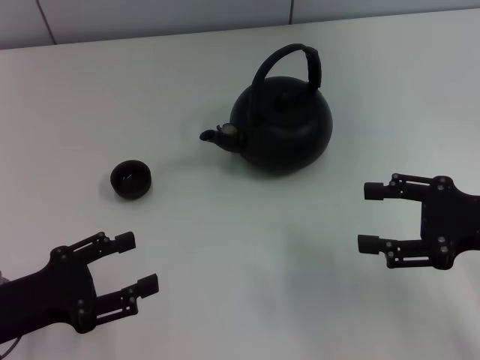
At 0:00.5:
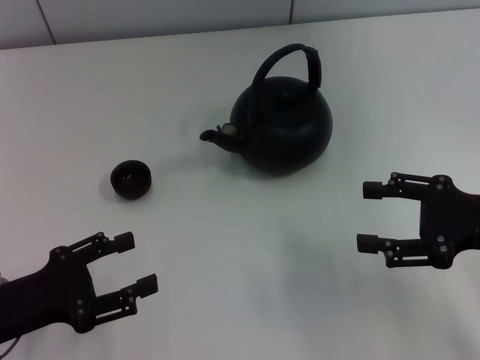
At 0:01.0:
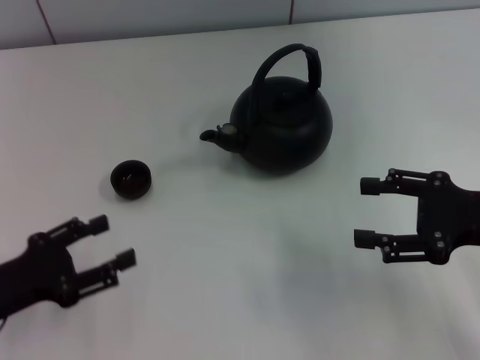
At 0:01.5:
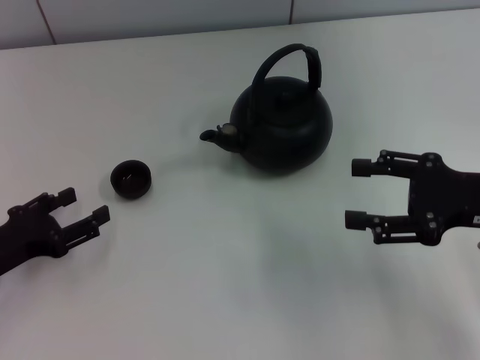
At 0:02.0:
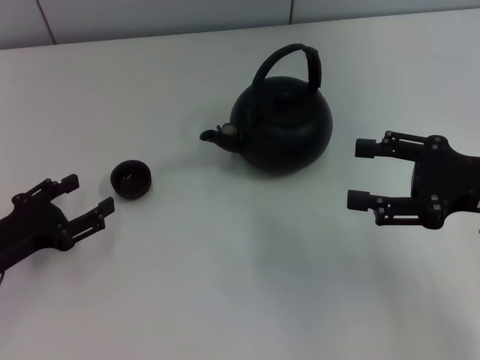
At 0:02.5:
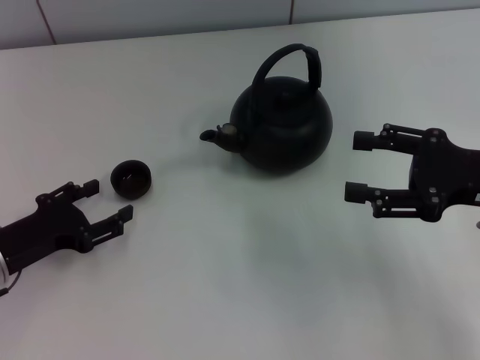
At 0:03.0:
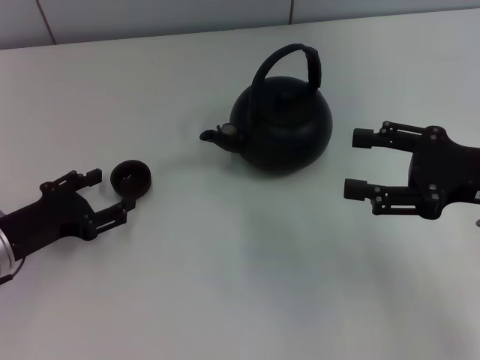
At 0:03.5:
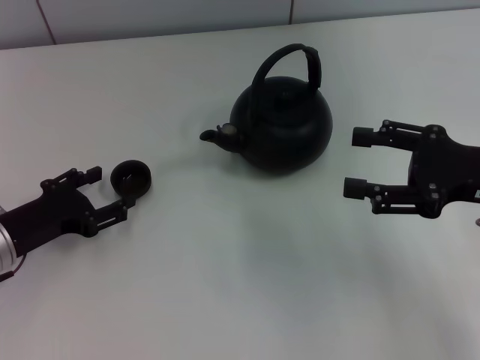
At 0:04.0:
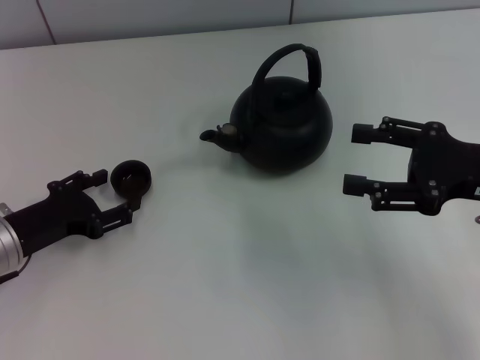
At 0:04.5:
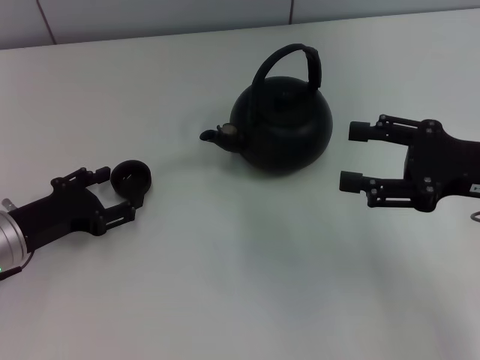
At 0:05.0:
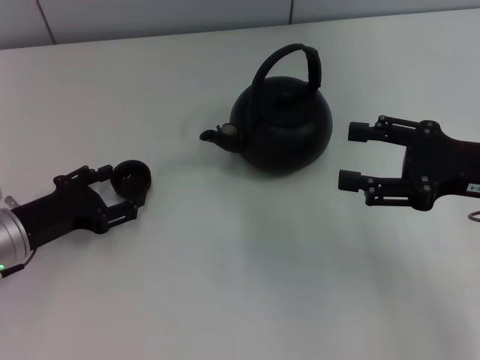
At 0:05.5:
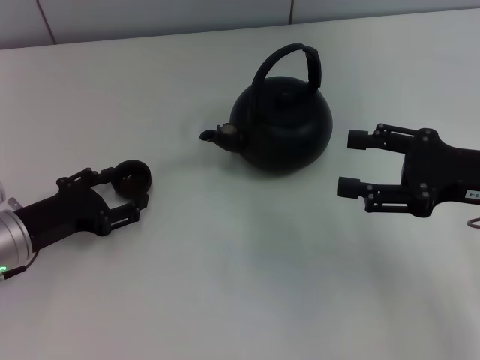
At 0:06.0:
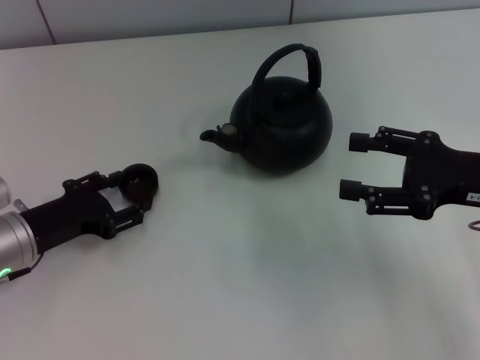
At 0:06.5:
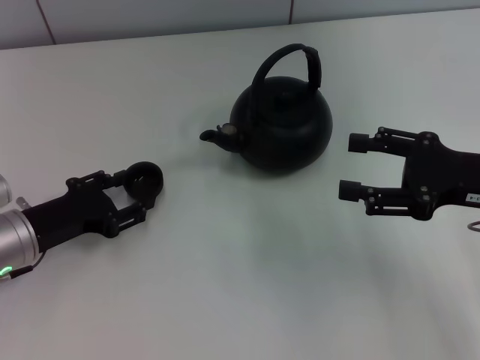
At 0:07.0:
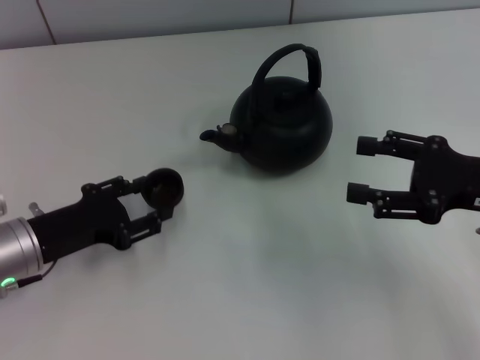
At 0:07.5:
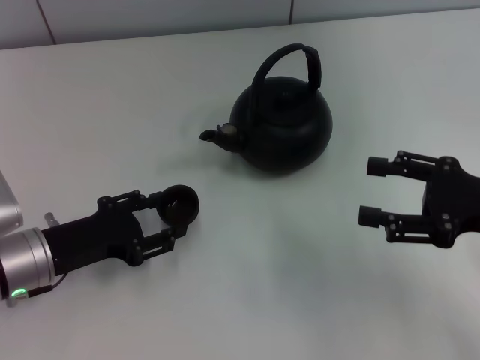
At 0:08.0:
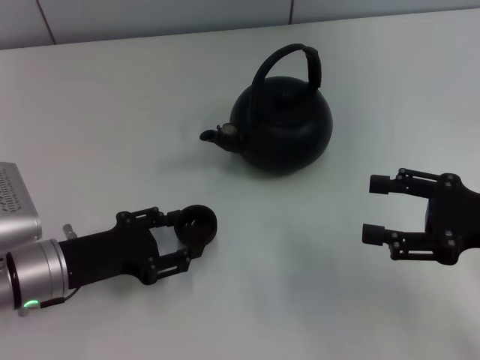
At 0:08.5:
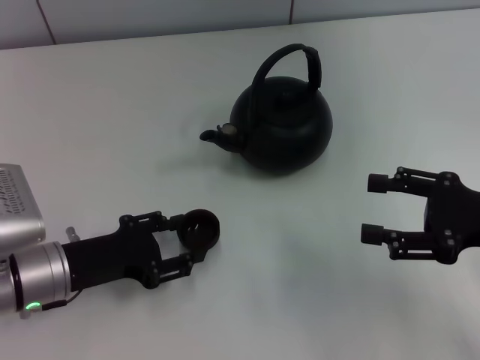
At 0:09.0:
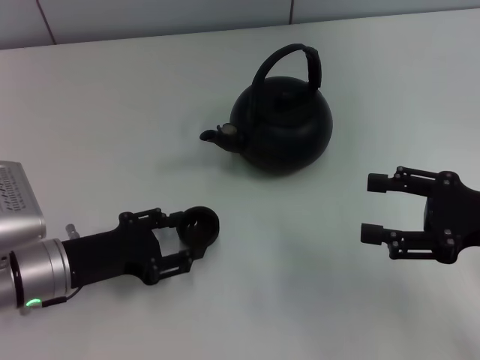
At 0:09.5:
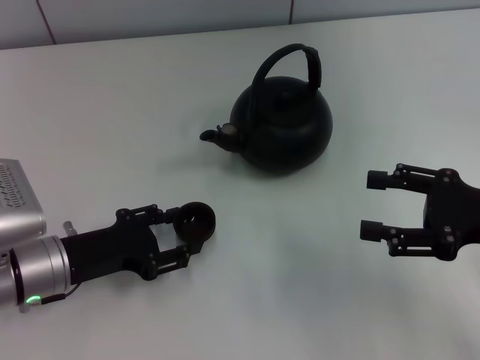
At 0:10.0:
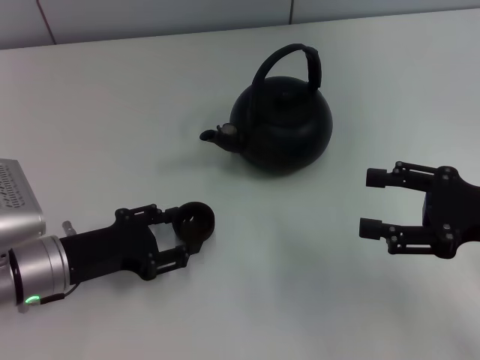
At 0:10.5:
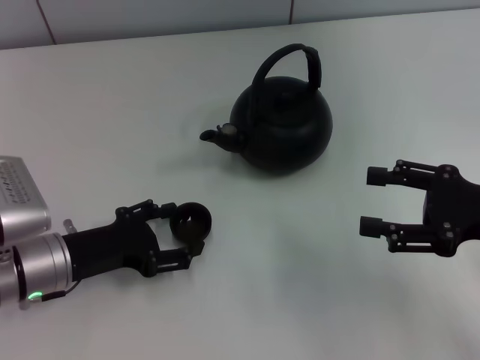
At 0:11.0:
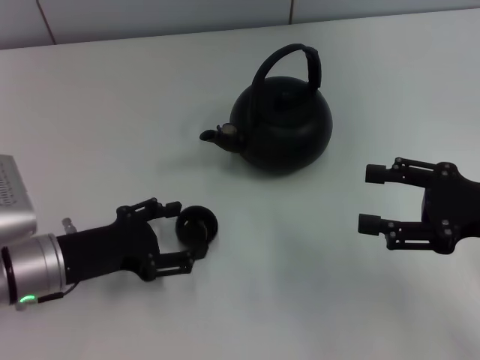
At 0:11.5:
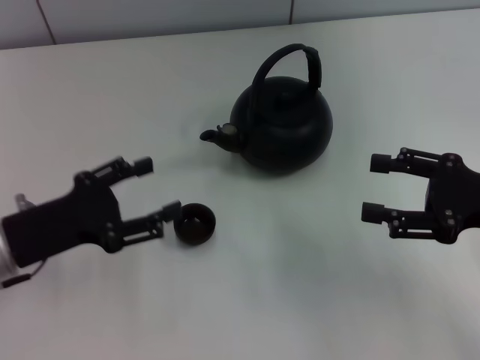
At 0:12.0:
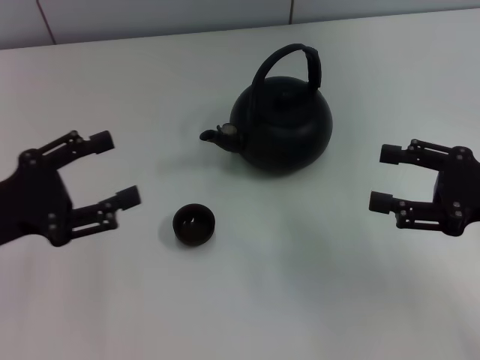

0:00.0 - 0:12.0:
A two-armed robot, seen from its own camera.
Task of the whole recording: Grasp the handle of the teapot with one hand and pour tea into the teacup.
Step, 0:00.0 - 0:06.5: Pick up the teacup with the left gripper.
Step, 0:07.0 - 0:11.0: Place the teacup in the center of view with the left gripper.
0:00.0 - 0:02.0: The left gripper moves approximately 5 cm.
0:02.0 - 0:04.0: The grippers move only a little.
0:04.0 - 0:06.0: The left gripper closes its fingers.
0:08.0 - 0:10.0: Both grippers stay put.
0:10.0 - 0:12.0: The left gripper shifts some 10 cm upward and to the left, and opens its fingers.

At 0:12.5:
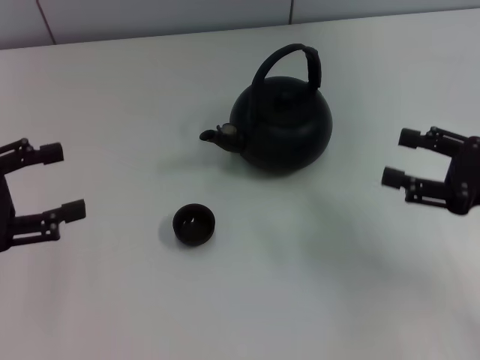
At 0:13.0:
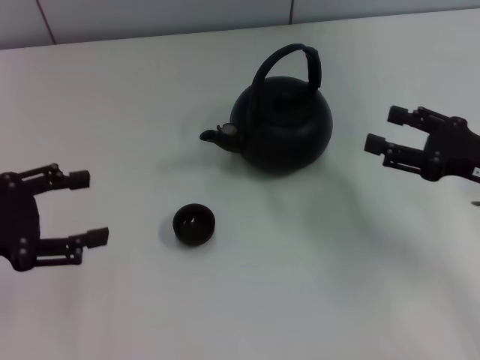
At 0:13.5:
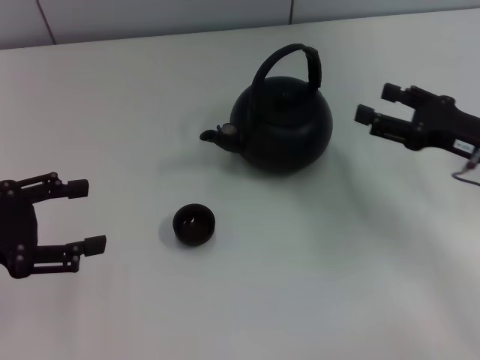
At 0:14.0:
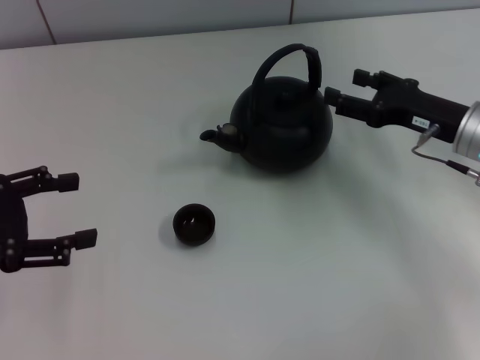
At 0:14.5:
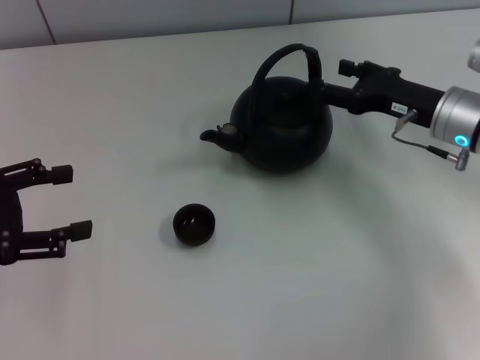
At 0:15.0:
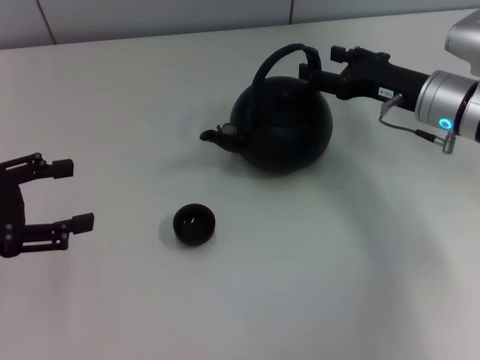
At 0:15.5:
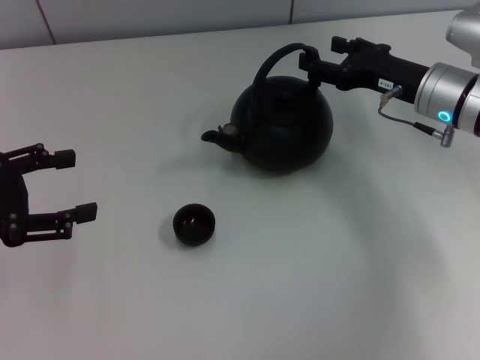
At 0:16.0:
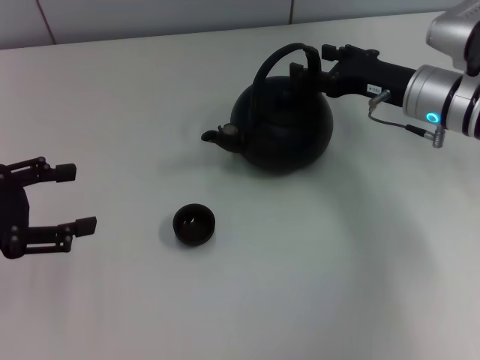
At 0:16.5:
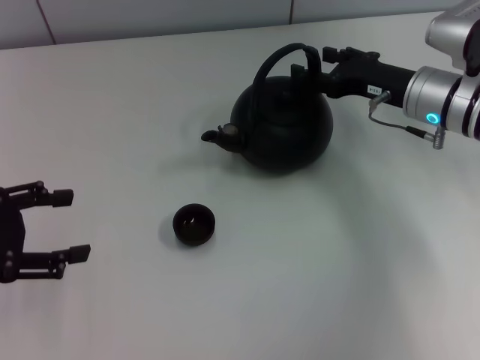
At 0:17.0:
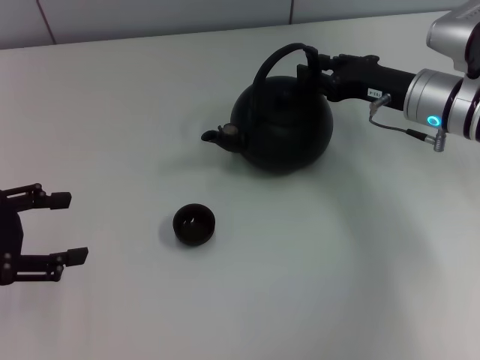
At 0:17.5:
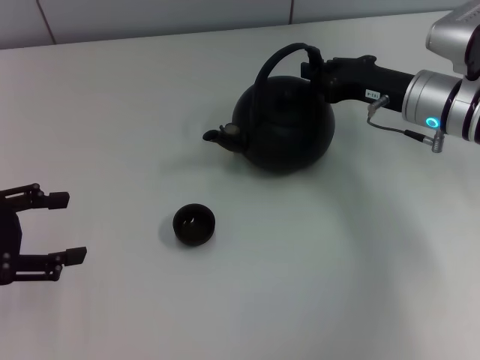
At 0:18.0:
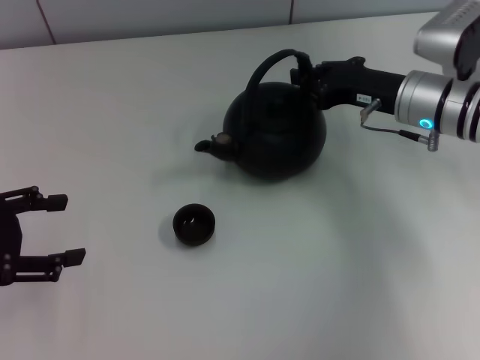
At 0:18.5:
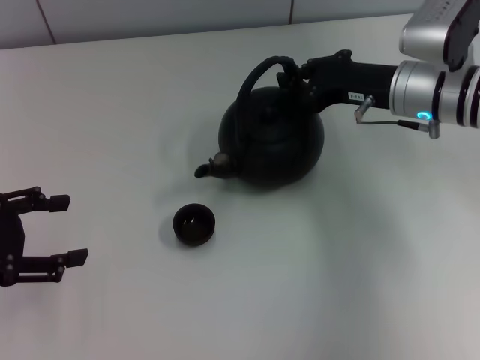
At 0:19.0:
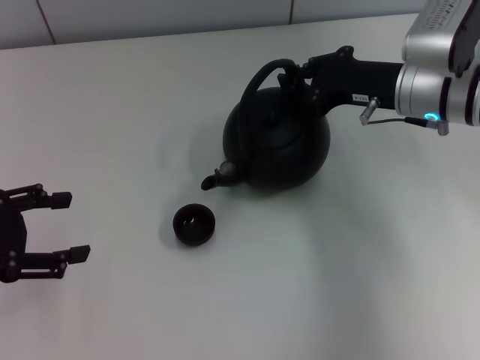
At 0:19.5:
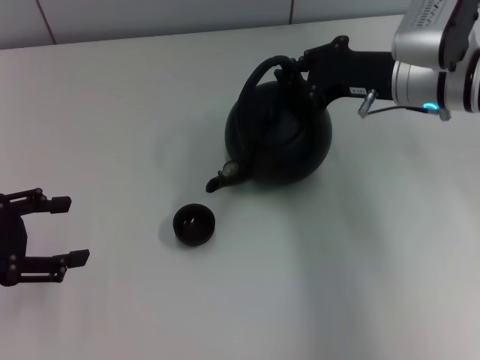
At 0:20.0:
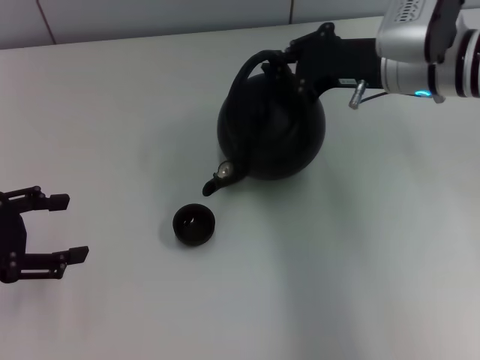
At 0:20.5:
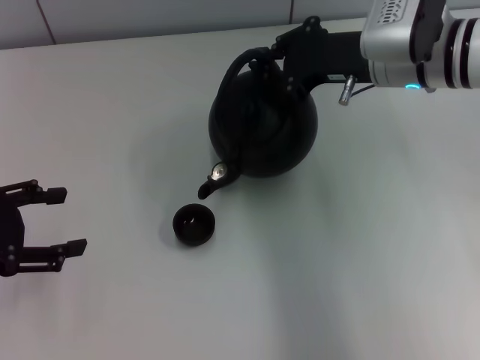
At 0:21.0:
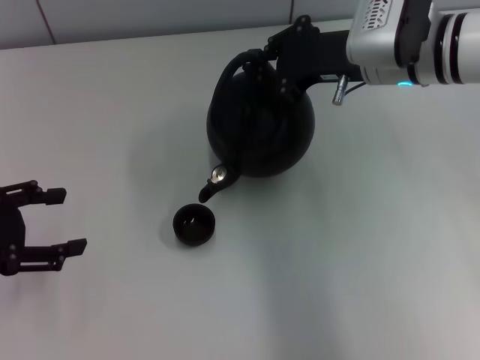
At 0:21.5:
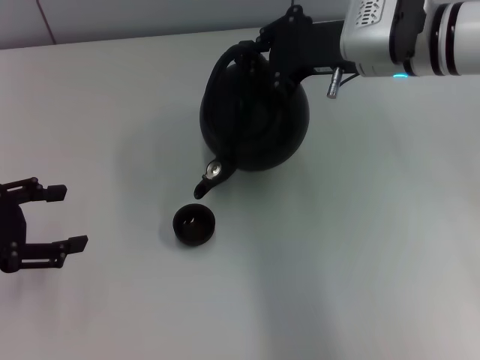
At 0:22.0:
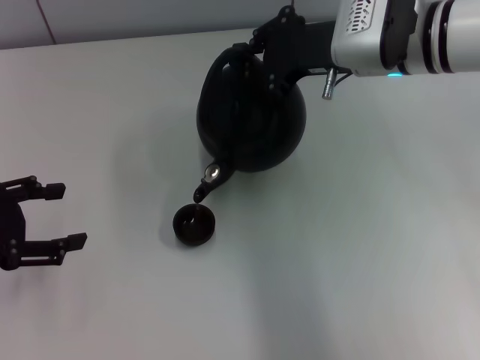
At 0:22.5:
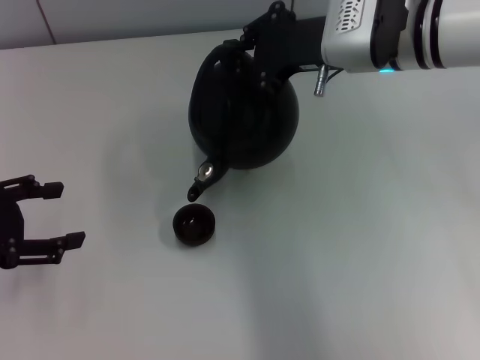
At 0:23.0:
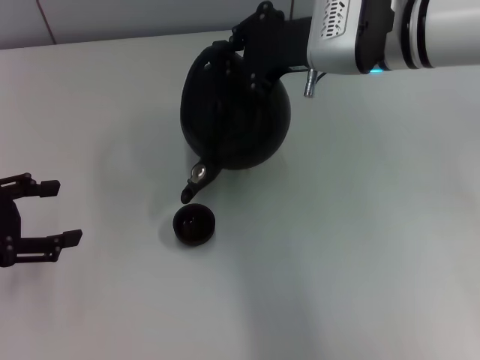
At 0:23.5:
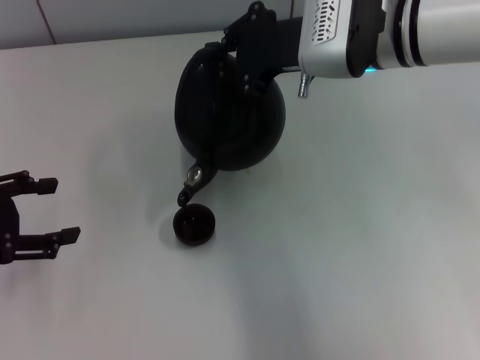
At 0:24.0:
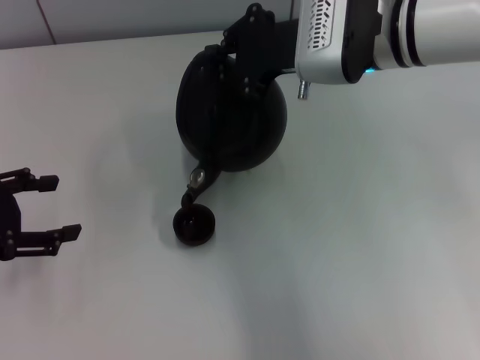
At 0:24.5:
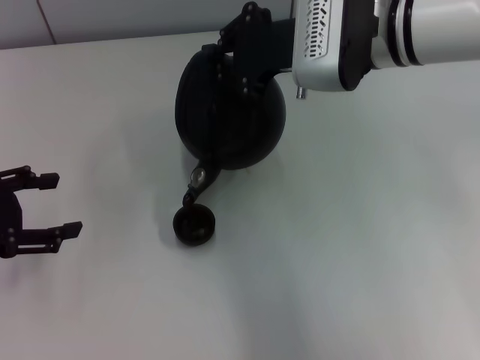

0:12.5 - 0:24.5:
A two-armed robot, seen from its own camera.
Task of the whole recording: Grasp the handle of the teapot with one hand and pour tea into the teacup.
Step, 0:12.5 - 0:20.0: Pick up the teapot with the right gripper.
0:12.5 - 0:14.5: The right gripper shifts about 15 cm forward and to the left.
0:14.5 - 0:16.5: There are only small adjustments of the grippers.
0:16.5 - 0:18.5: The right gripper closes its fingers.
0:18.5 - 0:20.5: The right gripper travels upward by approximately 5 cm.
0:20.5 - 0:22.5: The grippers move only a little.
0:22.5 - 0:24.5: There are only small adjustments of the grippers.

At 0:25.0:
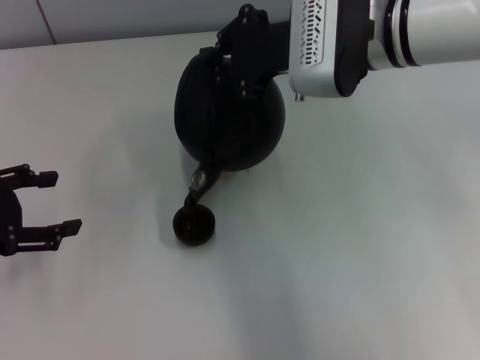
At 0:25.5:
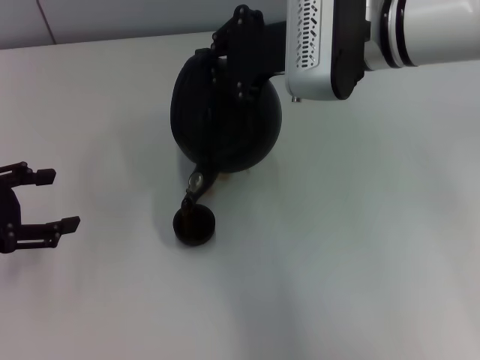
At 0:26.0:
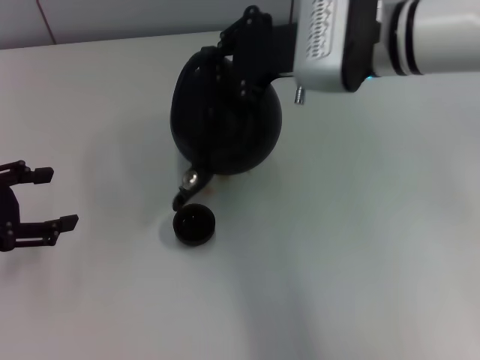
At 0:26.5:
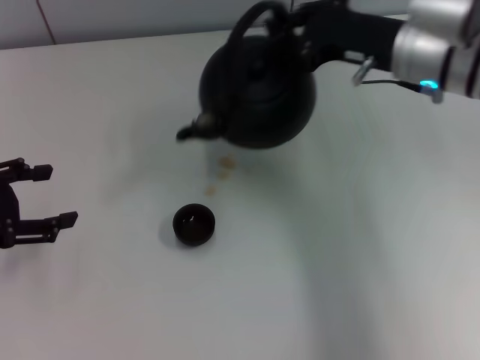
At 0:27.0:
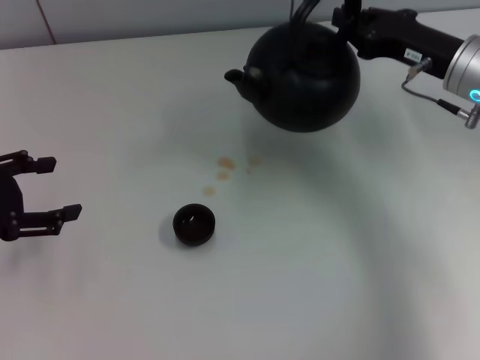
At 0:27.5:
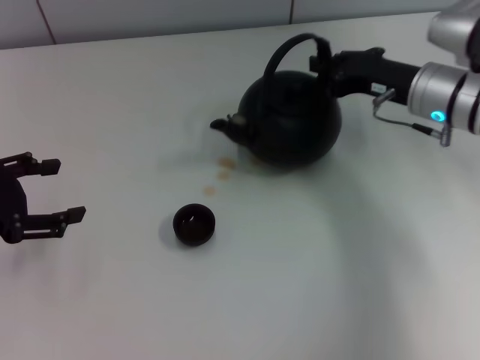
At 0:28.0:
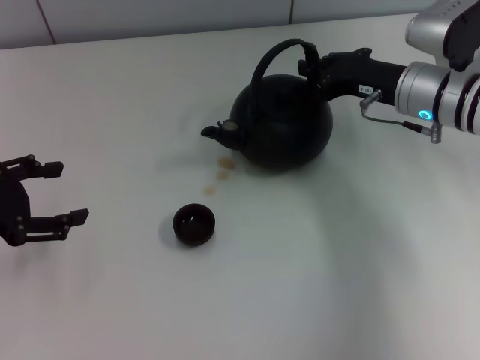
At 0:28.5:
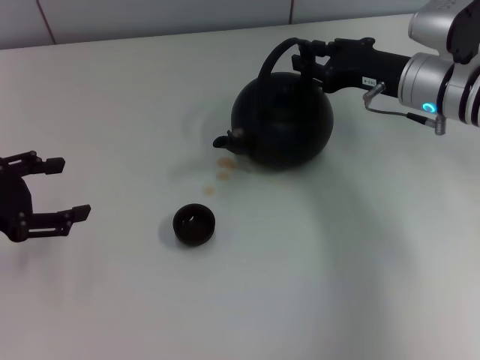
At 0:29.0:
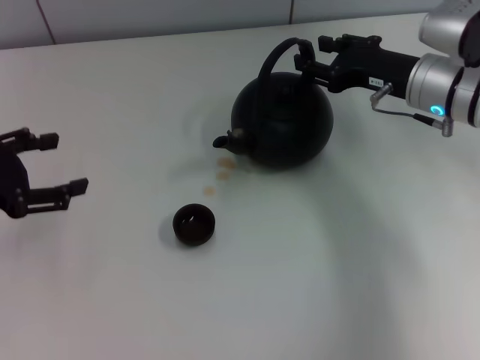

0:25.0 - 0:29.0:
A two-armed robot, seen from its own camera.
Task of the whole recording: Grasp the handle of the teapot with one hand and pour tea into the teacup.
0:25.0 - 0:27.0: The right gripper moves to the right and downward, approximately 15 cm.
0:27.0 - 0:29.0: The right gripper opens.
